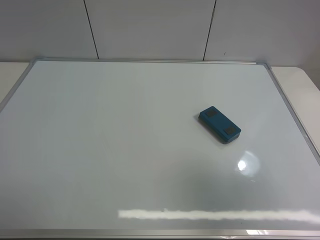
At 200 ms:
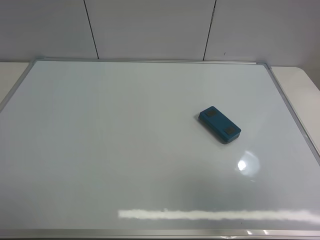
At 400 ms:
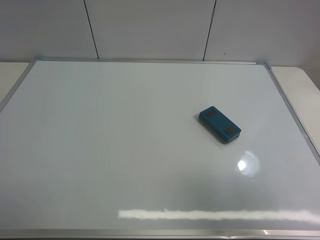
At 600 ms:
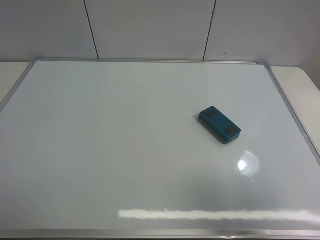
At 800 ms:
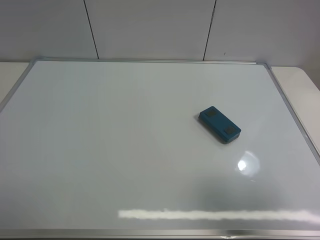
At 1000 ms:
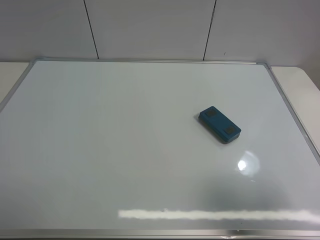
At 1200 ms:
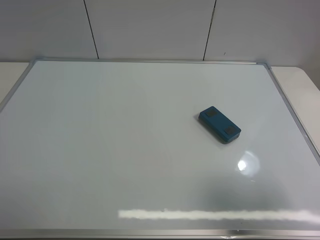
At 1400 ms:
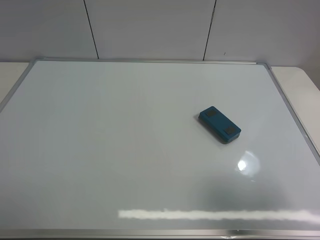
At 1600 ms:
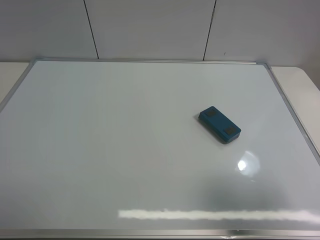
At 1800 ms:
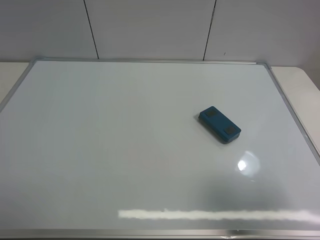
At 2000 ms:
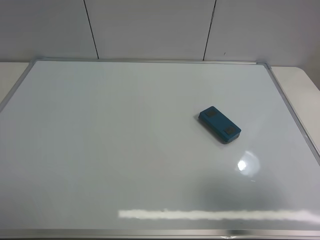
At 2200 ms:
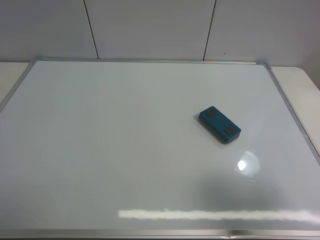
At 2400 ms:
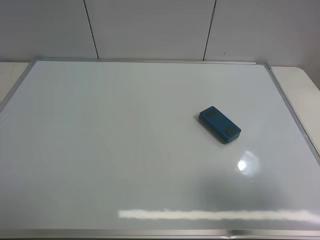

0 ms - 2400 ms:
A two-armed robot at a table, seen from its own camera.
Task of the whole recording: use the right gripper to pick up the board eraser, wipe the notes on the whiteboard clean, and then put them back in place.
0 ms - 1200 ms: The right gripper goes approximately 10 cm downward.
